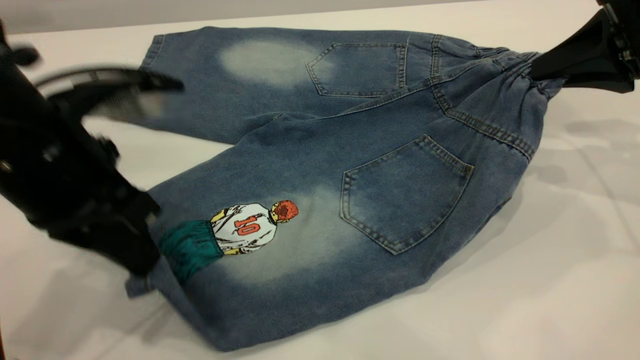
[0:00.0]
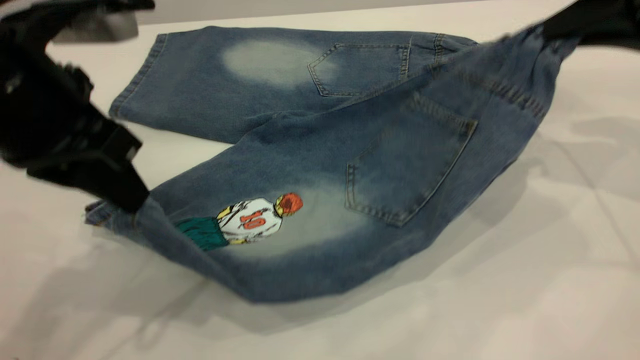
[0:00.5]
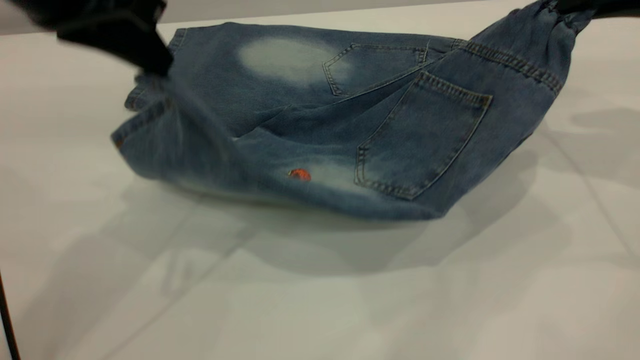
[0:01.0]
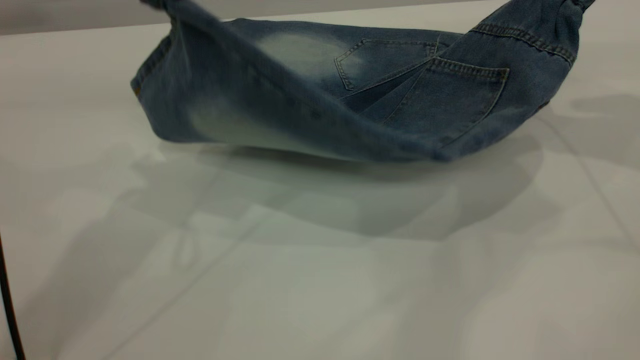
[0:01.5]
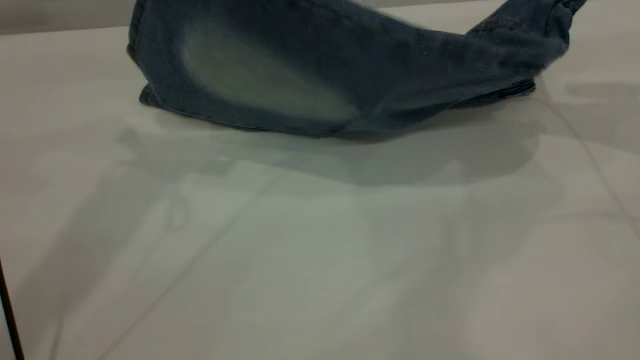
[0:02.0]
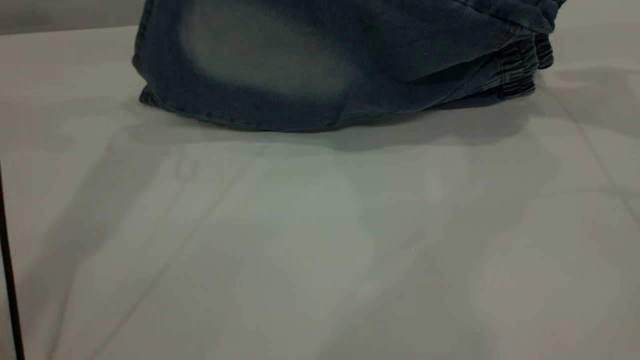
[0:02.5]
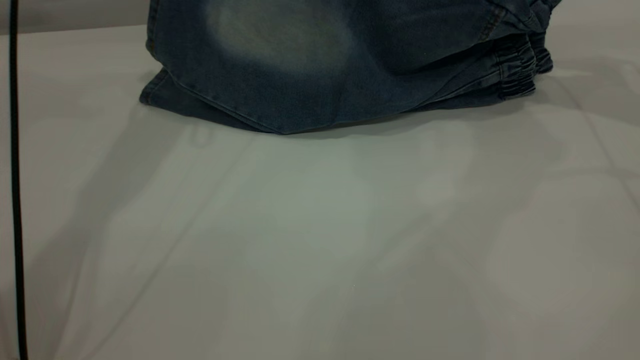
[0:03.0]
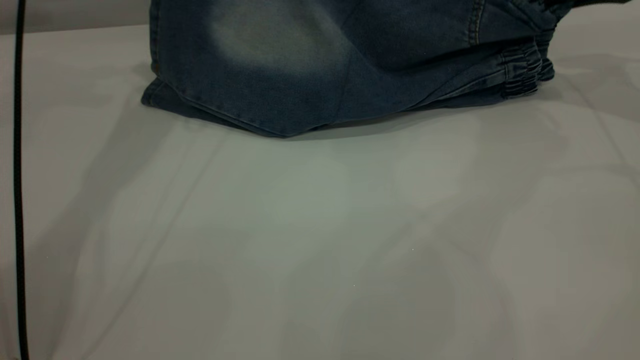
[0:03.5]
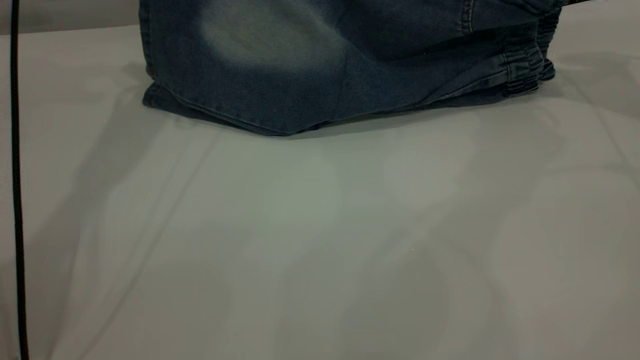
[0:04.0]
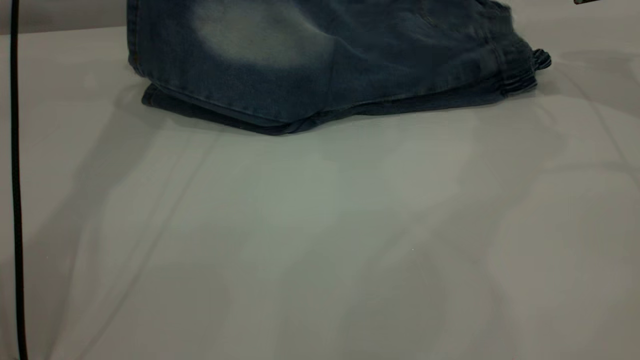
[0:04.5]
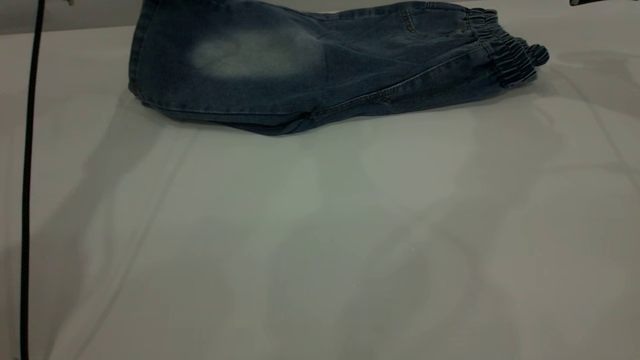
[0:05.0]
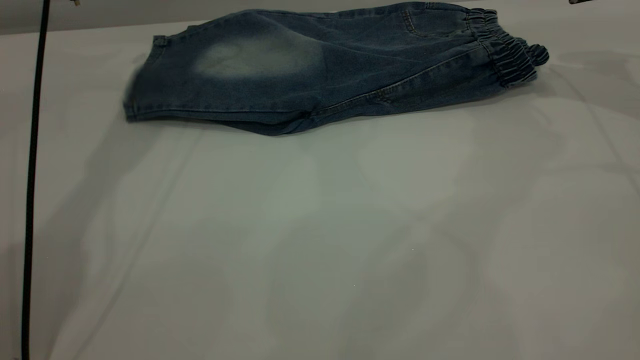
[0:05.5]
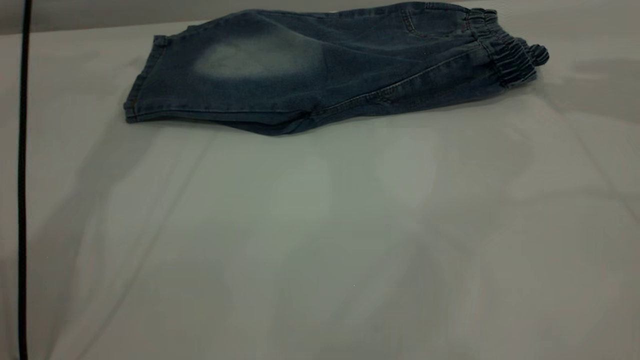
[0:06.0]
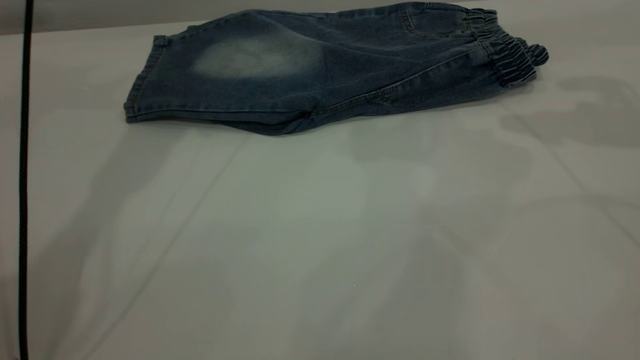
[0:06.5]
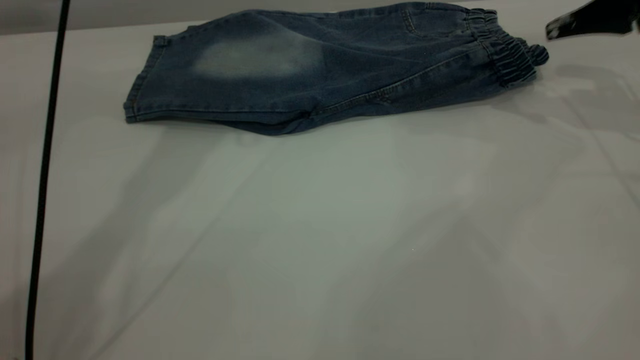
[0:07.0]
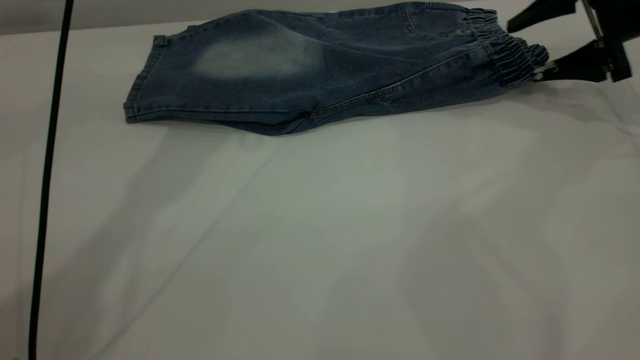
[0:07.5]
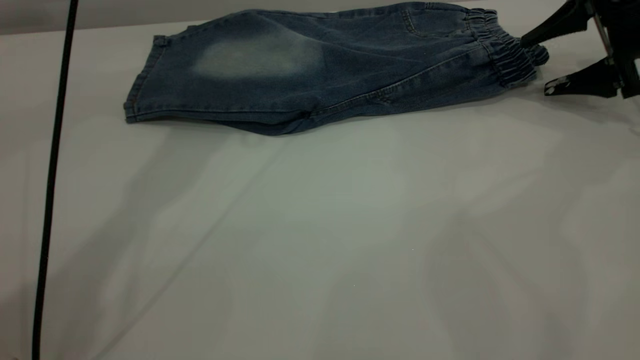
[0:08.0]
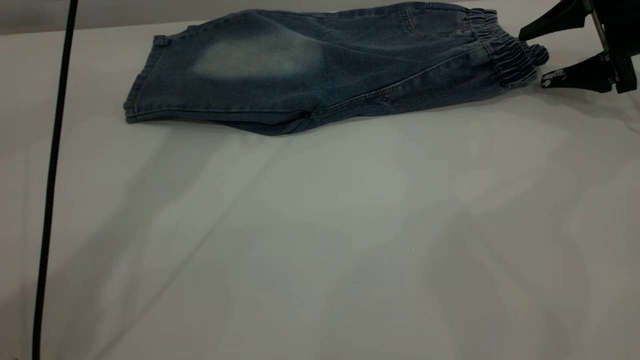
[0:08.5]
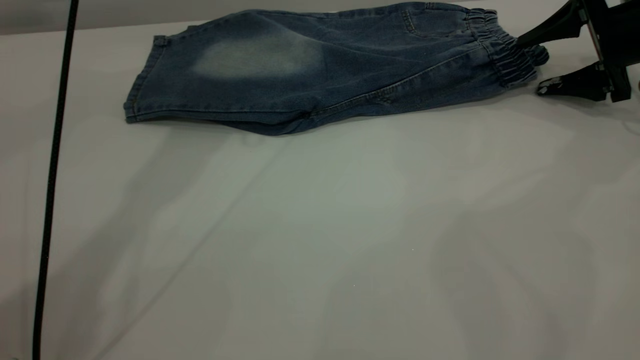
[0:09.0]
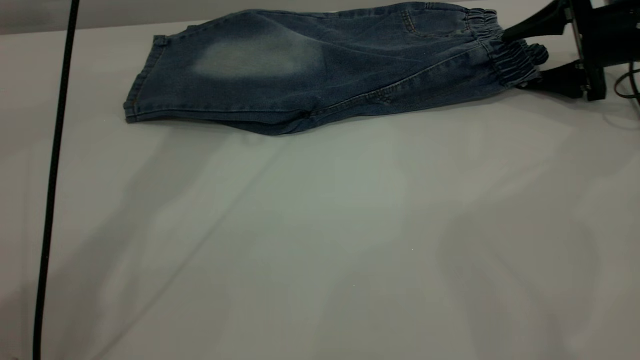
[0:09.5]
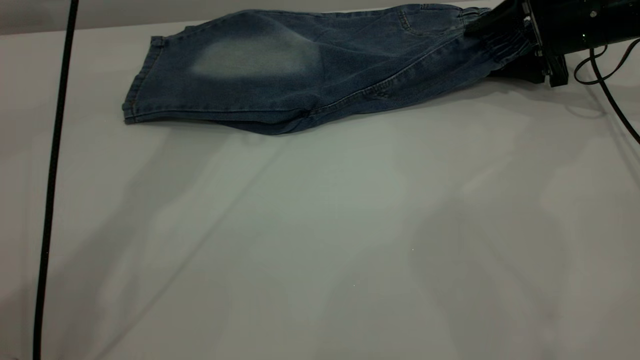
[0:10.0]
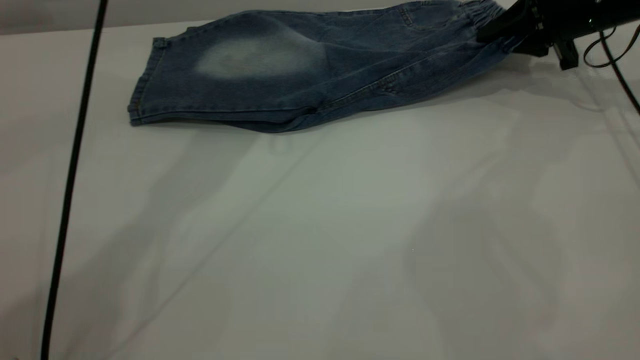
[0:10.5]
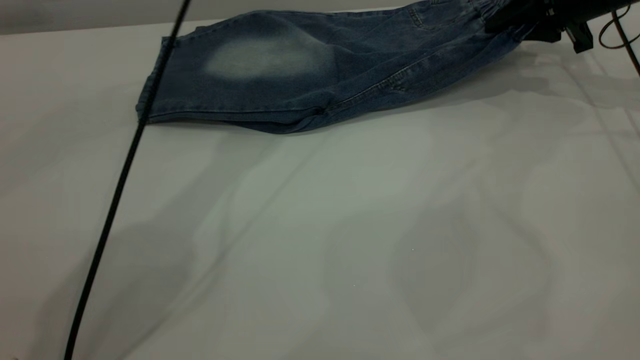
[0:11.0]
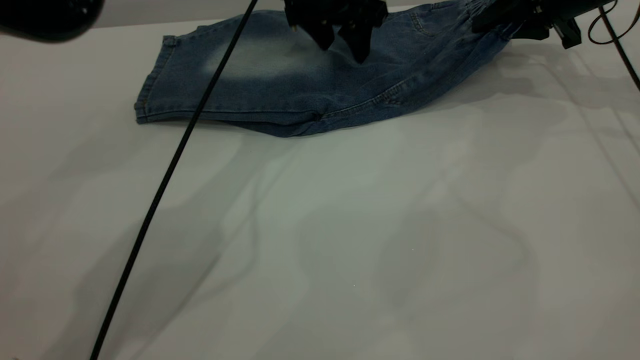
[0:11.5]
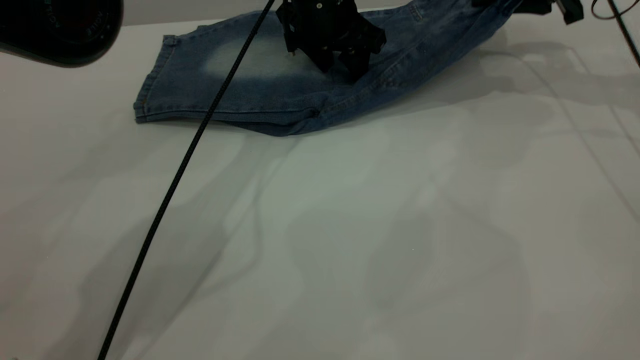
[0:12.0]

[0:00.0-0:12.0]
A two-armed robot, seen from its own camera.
Step, 0:00.0 to 0:05.5: Fold the bottom of the pants upward.
0:00.0 to 0:02.0: The left gripper travels upward and forward by approximately 20 cm. The right gripper is displaced forward and upward by about 10 cm.
0:02.0 to 0:04.0: The right gripper travels forward by about 5 cm. The left gripper moves forward, about 15 cm.
0:04.0 to 0:06.0: The left gripper opens up; the right gripper travels upward by some 10 cm, and opens.
0:06.0 to 0:08.0: The left gripper shifts roughly 10 cm to the right, while the right gripper heads downward, covering some 20 cm.
0:08.0 to 0:10.0: The right gripper changes place by roughly 5 cm.
0:10.0 to 0:12.0: The left gripper is displaced downward and to the right by some 20 cm. The right gripper is displaced upward by about 10 cm, and closes up.

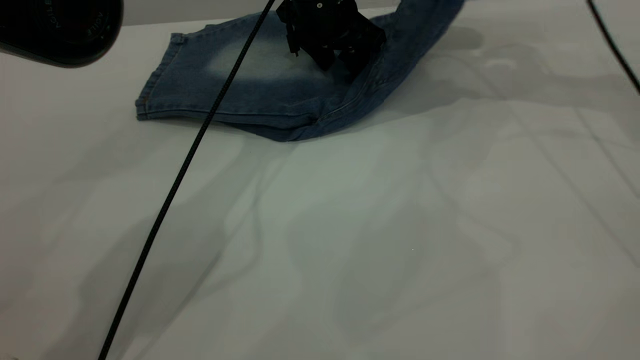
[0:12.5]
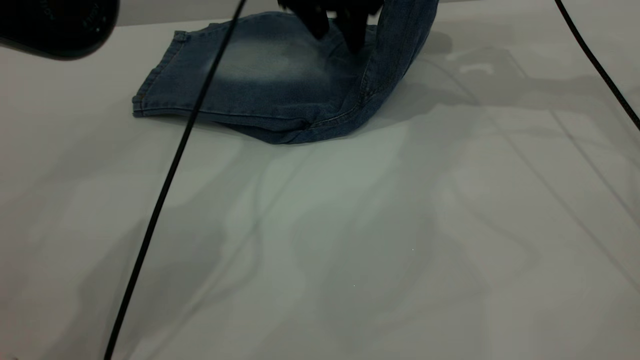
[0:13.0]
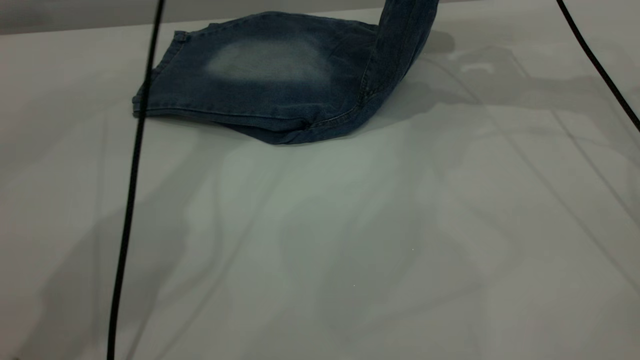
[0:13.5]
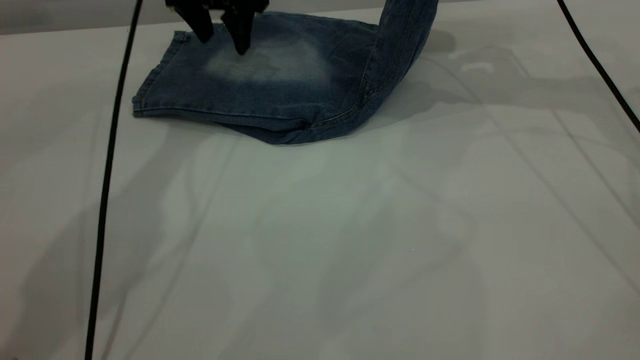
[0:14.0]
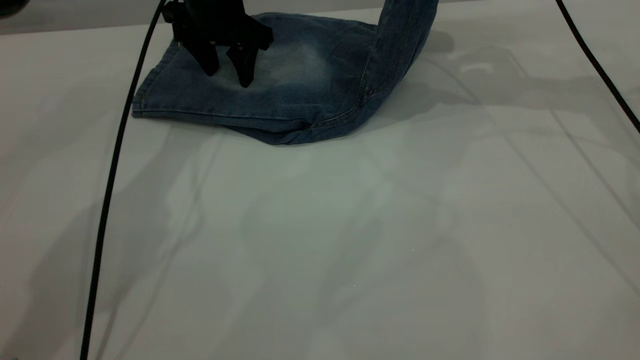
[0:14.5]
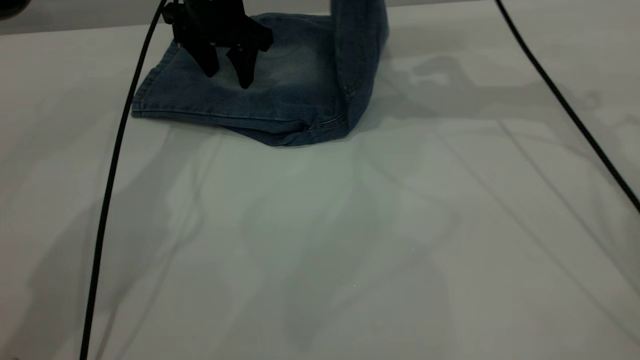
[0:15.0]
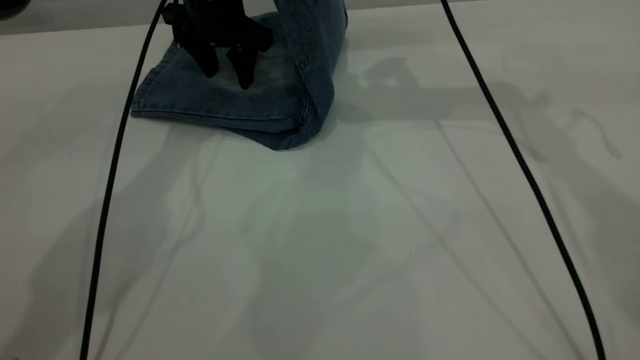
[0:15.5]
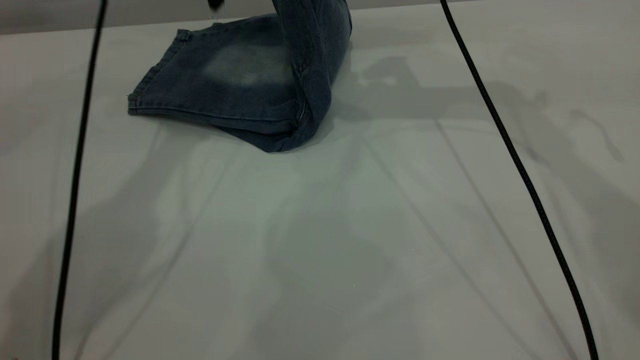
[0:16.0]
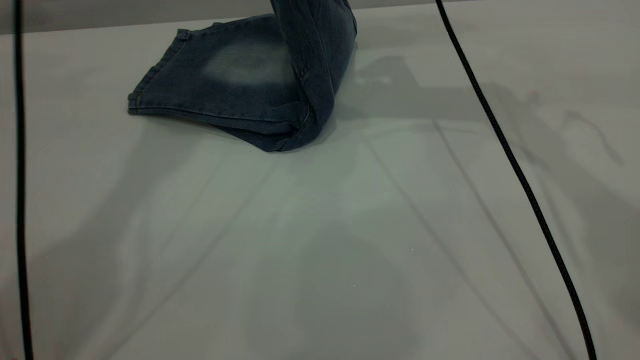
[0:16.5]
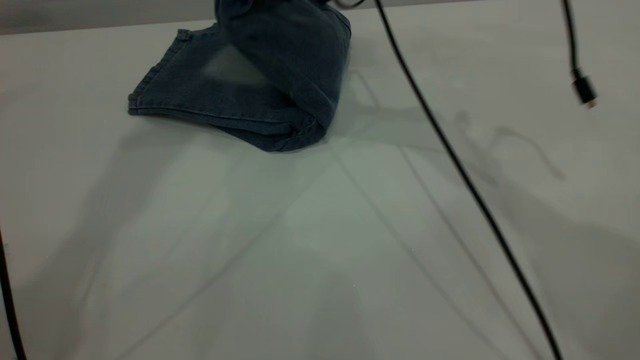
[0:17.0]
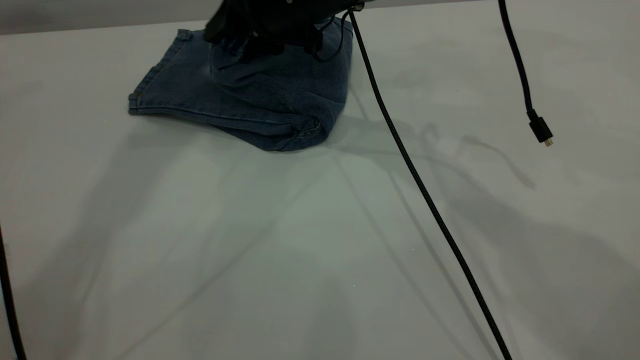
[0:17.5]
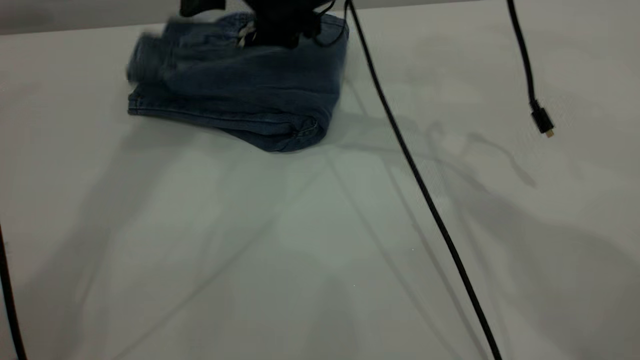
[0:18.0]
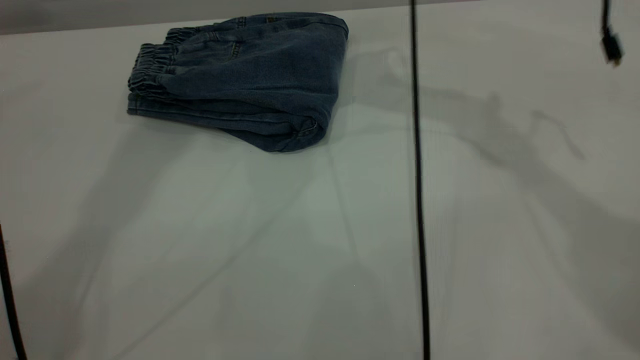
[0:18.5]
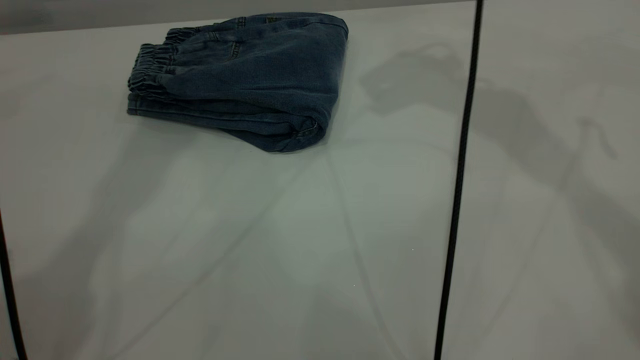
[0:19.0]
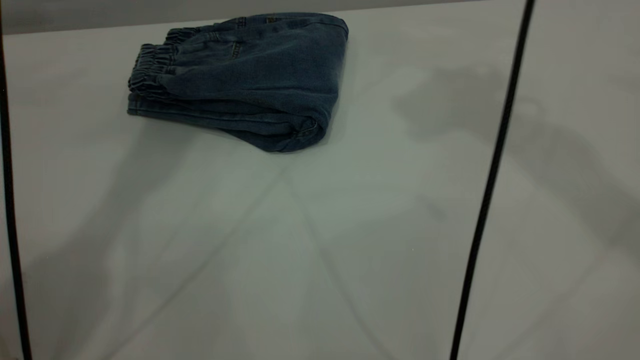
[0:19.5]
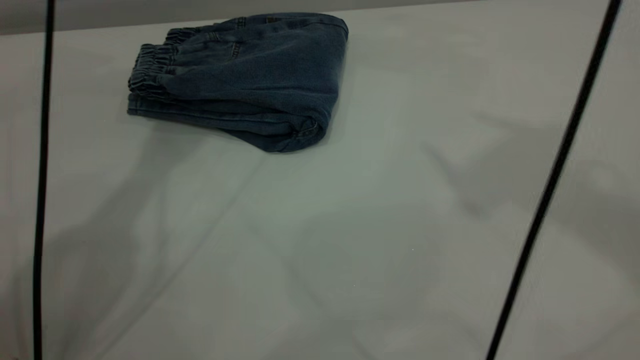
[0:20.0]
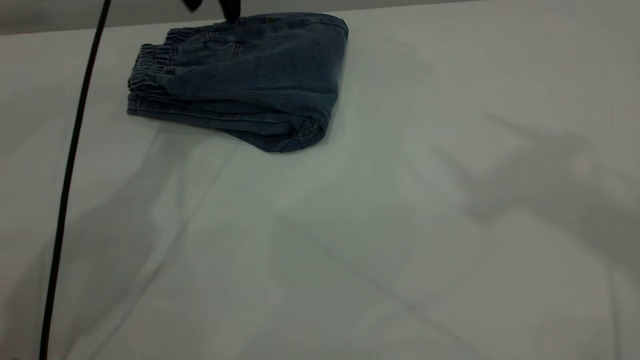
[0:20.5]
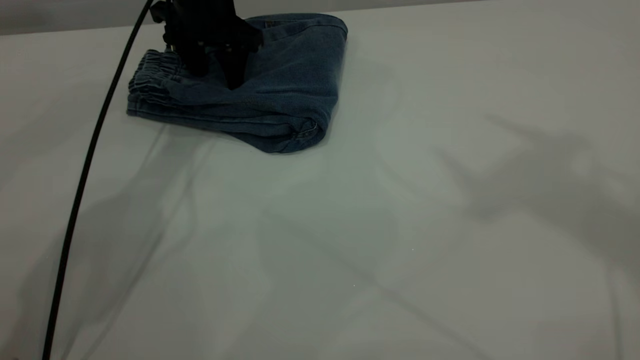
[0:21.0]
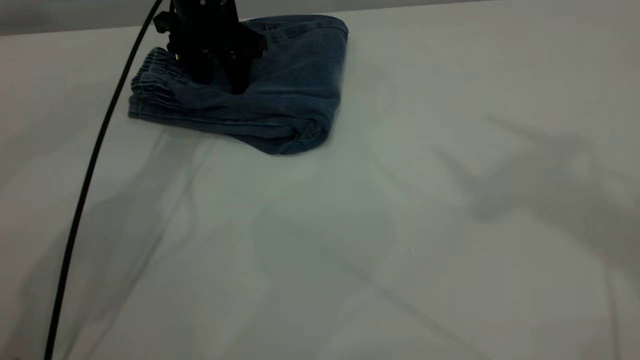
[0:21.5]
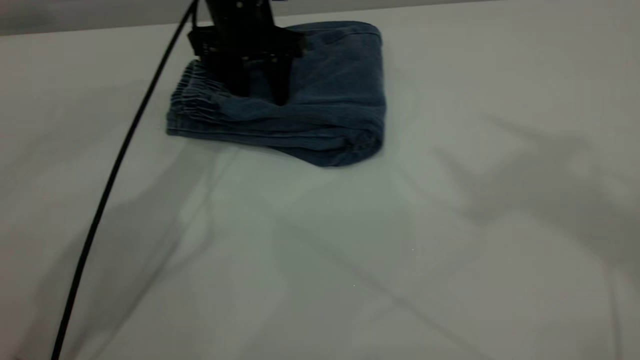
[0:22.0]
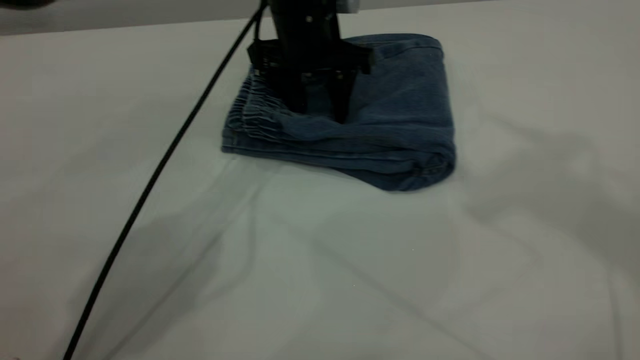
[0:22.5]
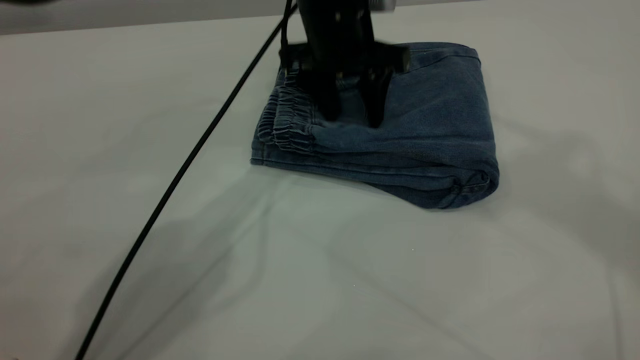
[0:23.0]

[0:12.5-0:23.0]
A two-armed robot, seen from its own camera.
Step, 0:12.5 to 0:18.0: Fold your pants from right to left.
0:12.5 to 0:14.5: The left gripper is displaced to the left by about 10 cm.
0:14.5 to 0:16.5: The left gripper heads upward, covering about 30 cm. The right gripper goes approximately 15 cm to the left.
0:16.5 to 0:19.0: The right gripper shifts some 10 cm upward, and opens, while the left gripper heads upward, covering approximately 5 cm.
0:19.0 to 0:21.0: The left gripper is displaced downward by roughly 35 cm. The right gripper shifts roughly 25 cm backward and upward.
0:21.0 to 0:23.0: The left gripper goes approximately 15 cm to the right and backward.
